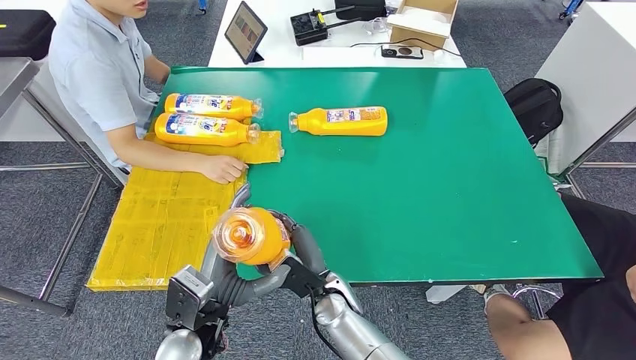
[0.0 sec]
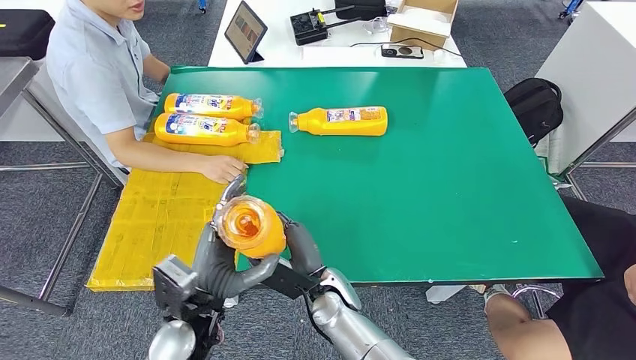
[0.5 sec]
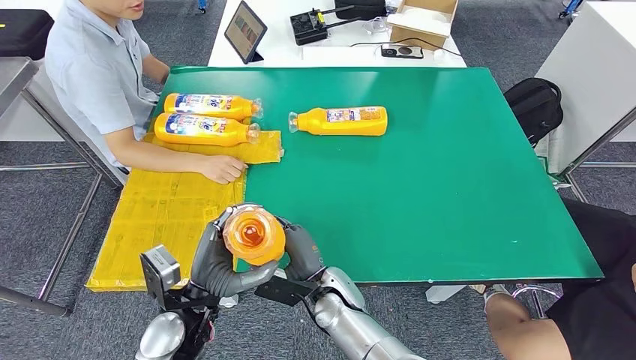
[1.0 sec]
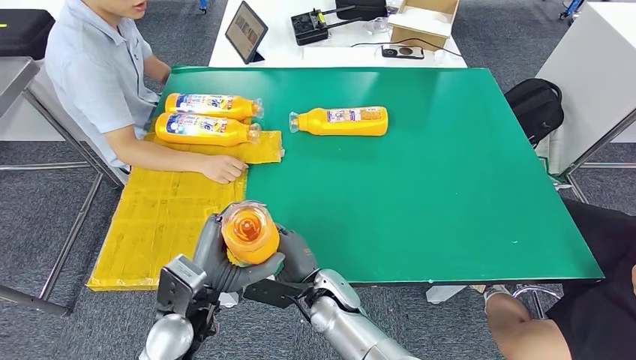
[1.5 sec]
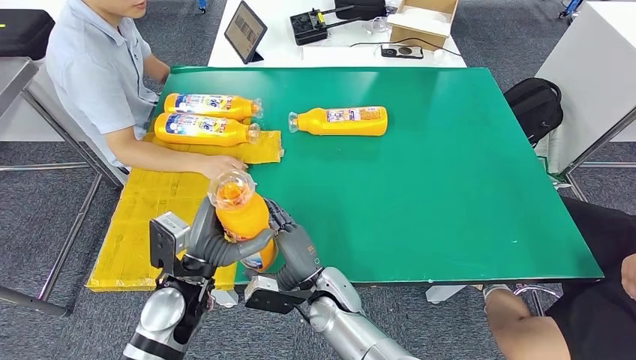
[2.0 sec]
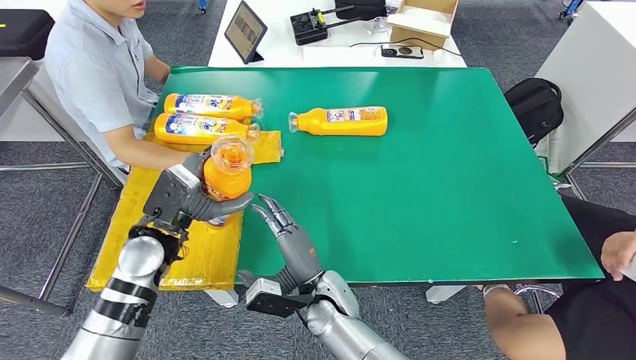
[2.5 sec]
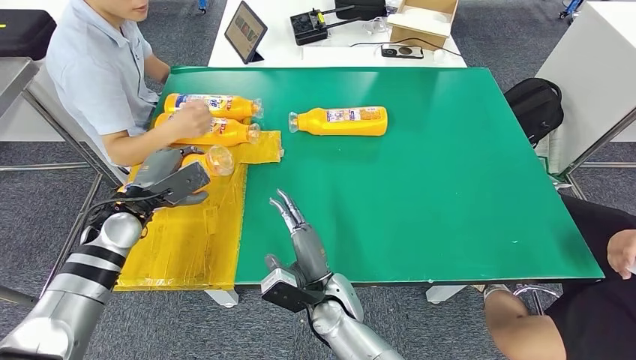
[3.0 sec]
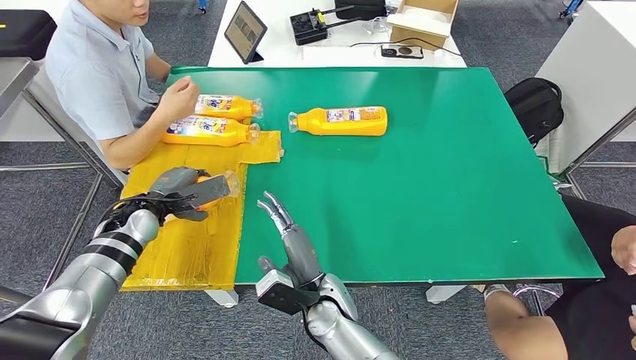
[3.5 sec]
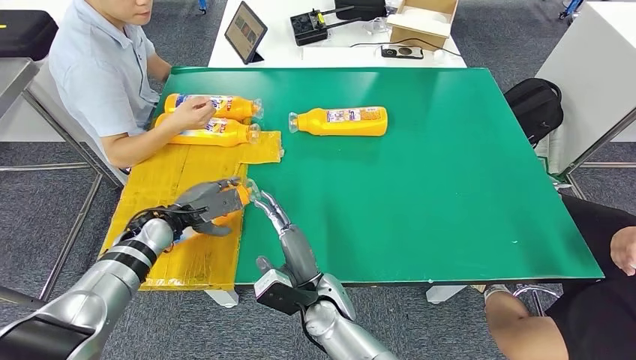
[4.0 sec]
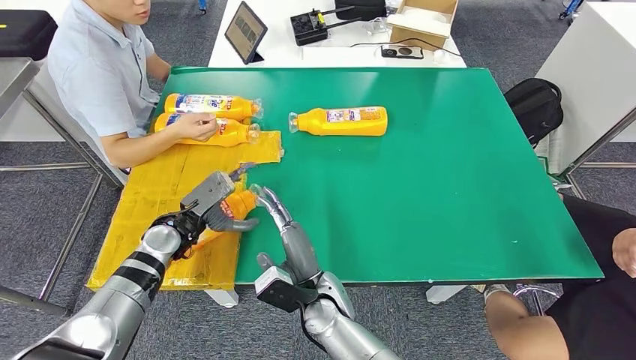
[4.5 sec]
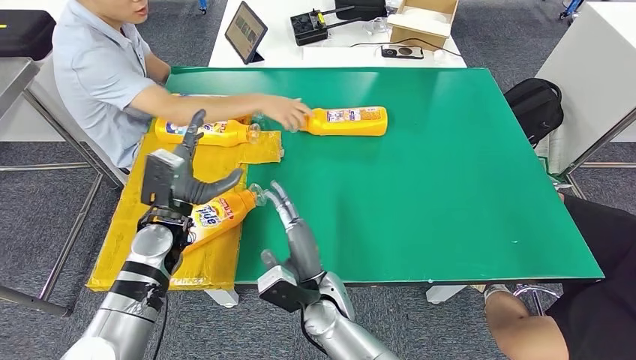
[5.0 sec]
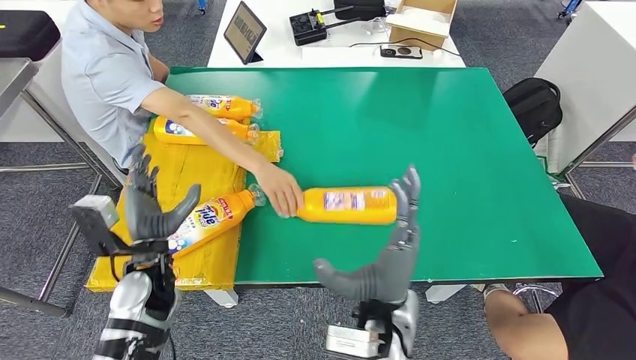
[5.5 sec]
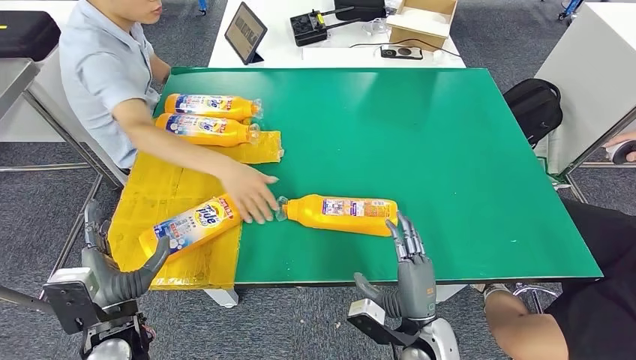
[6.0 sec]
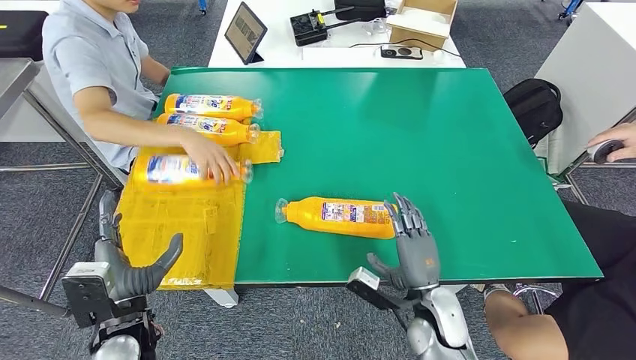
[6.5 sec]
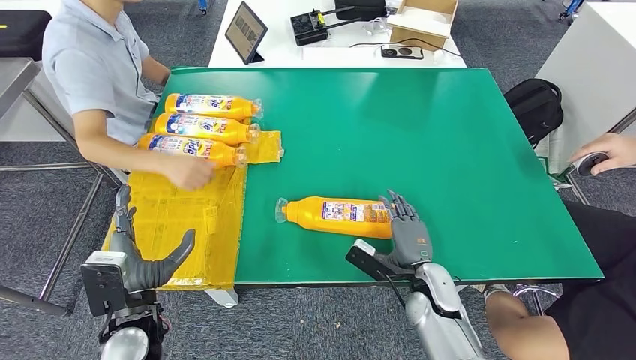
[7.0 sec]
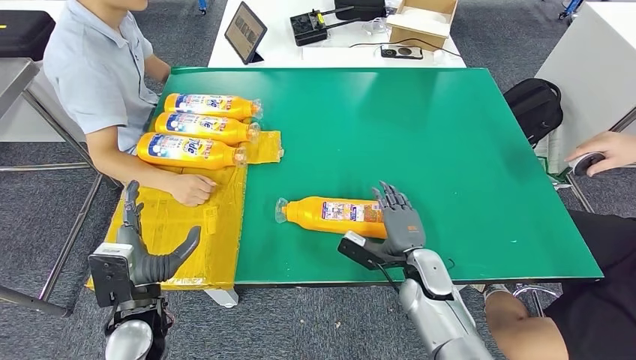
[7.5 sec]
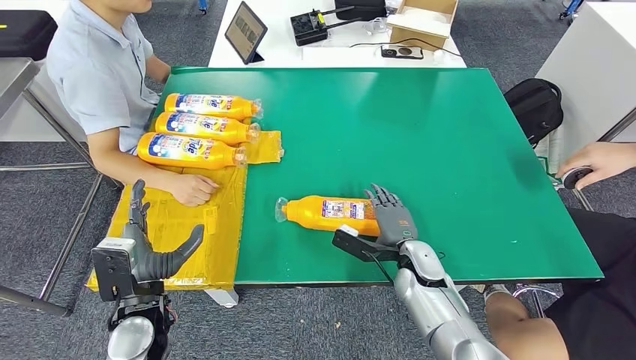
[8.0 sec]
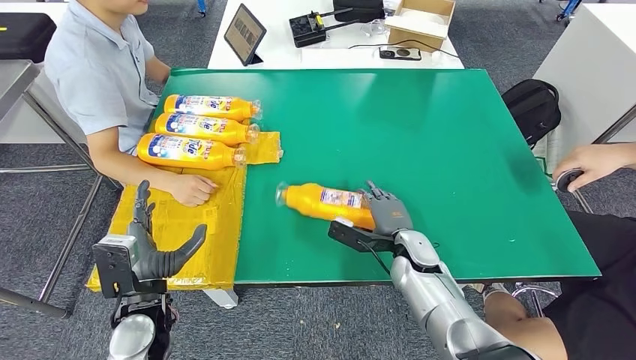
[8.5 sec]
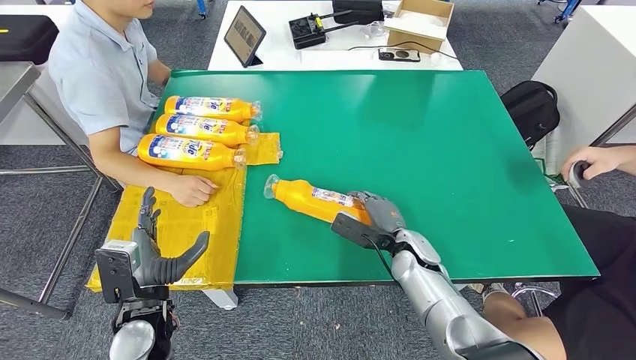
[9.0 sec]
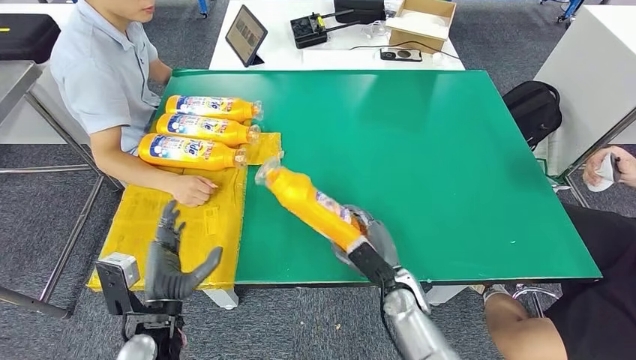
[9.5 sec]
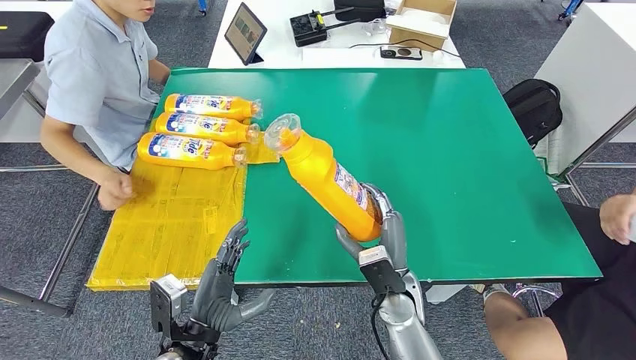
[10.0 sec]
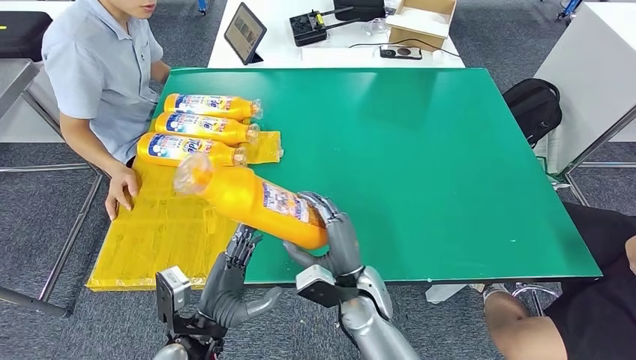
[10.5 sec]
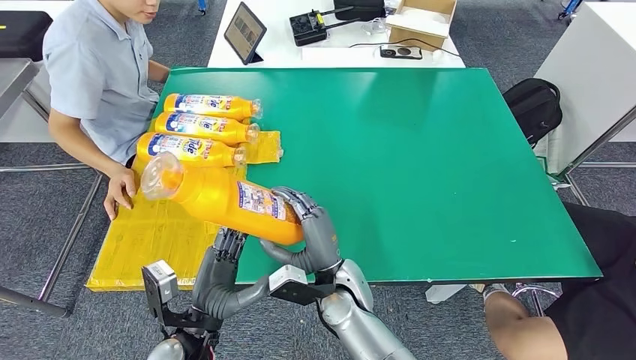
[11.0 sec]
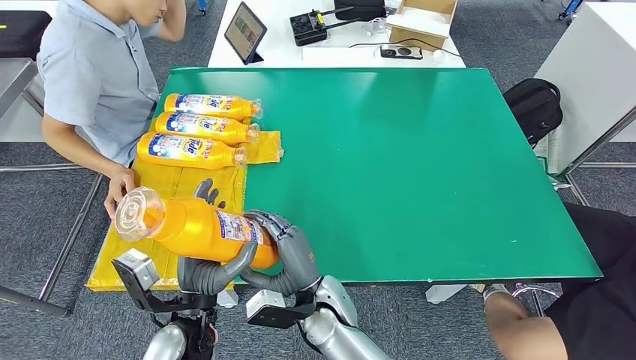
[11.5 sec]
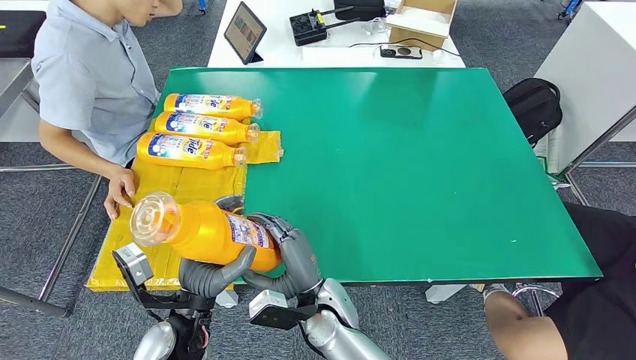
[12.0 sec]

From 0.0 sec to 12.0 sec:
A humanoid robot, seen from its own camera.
Step, from 0.0 sec to 4.5 sec: Flip the fast-moving consumer goods bottle to the front side.
Step, from 7.5 sec to 10.0 sec: Pick up the fast-moving consumer goods bottle from the table.
From 0.0 sec to 2.0 sec: The left hand travels forward by some 5 cm.
From 2.0 sec to 4.0 sec: The left hand moves forward and to the left, roughly 20 cm.
From 6.0 sec to 8.0 sec: The right hand moves forward, approximately 15 cm.
From 10.0 sec to 12.0 sec: The left hand moves approximately 5 cm, while the right hand heads to the left, covering approximately 15 cm.

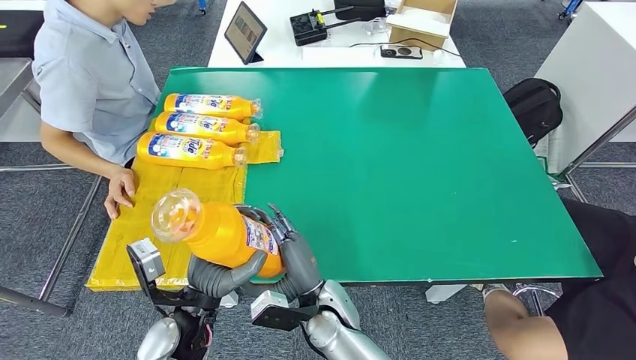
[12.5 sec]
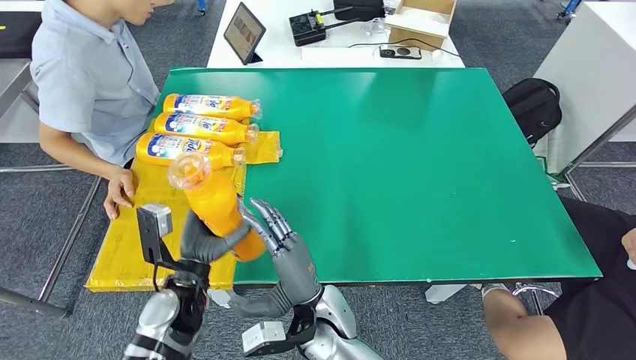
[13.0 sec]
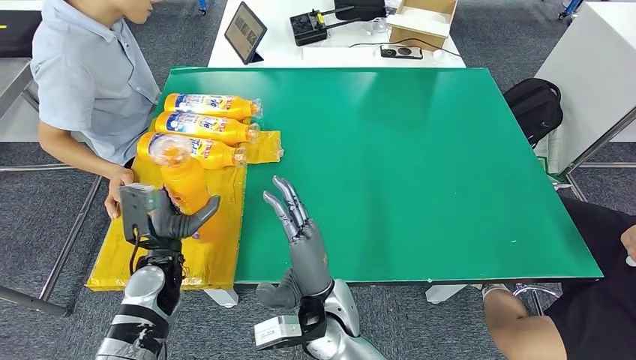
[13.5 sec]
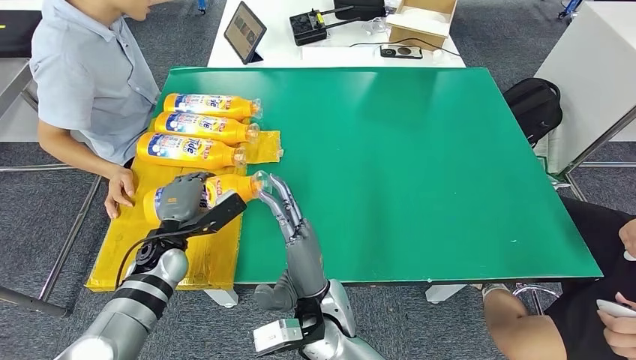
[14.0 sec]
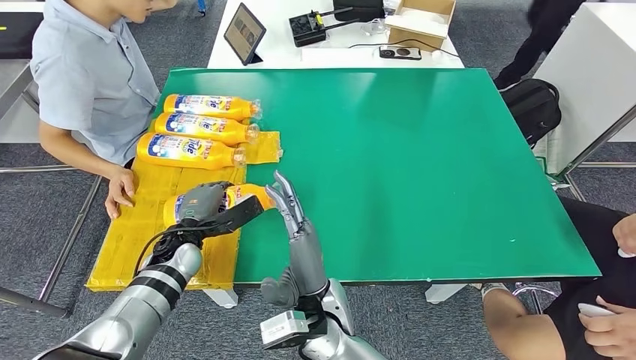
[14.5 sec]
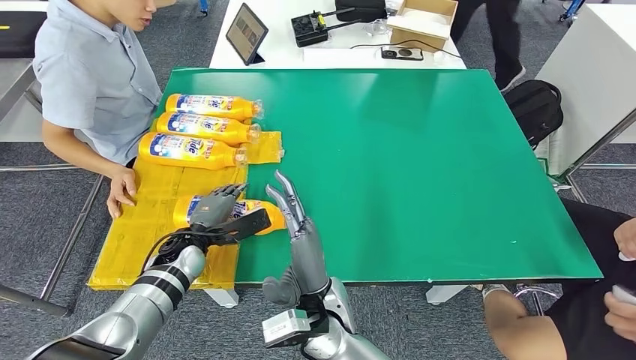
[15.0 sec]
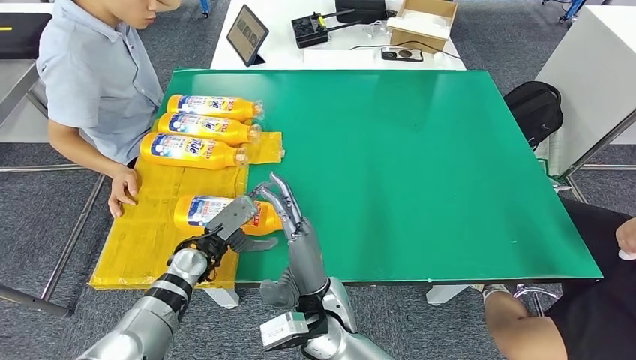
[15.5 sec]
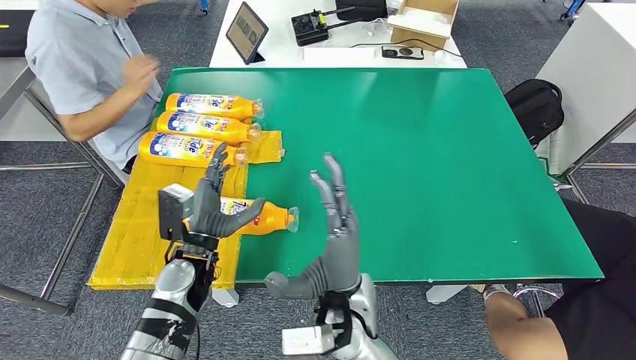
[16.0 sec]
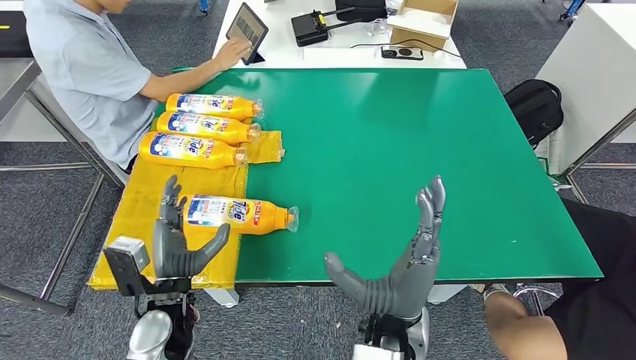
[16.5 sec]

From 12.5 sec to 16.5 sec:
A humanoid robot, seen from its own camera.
Step, from 12.5 sec to 16.0 sec: Flip the fast-moving consumer goods bottle to the front side.
From 12.5 sec to 14.5 sec: The left hand travels forward and to the left by some 15 cm. Meanwhile the right hand travels upward by some 5 cm.
